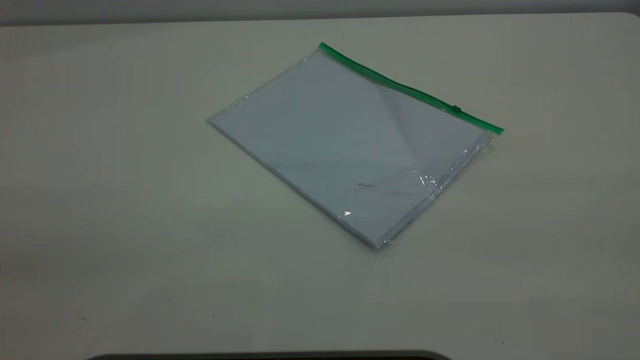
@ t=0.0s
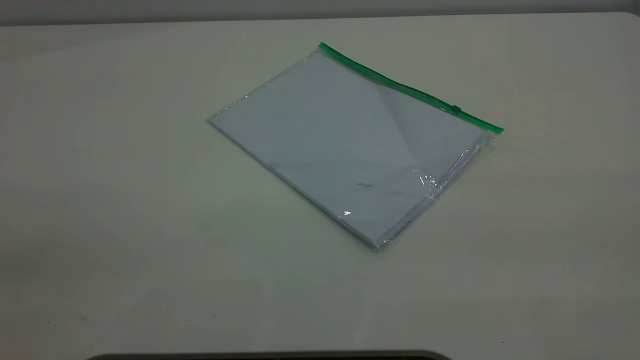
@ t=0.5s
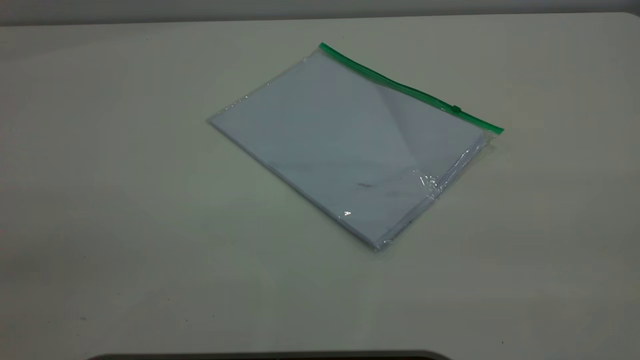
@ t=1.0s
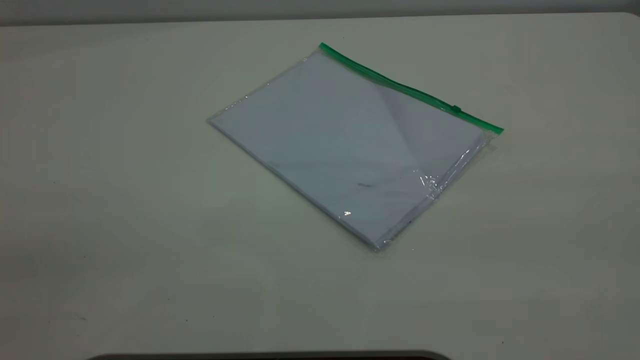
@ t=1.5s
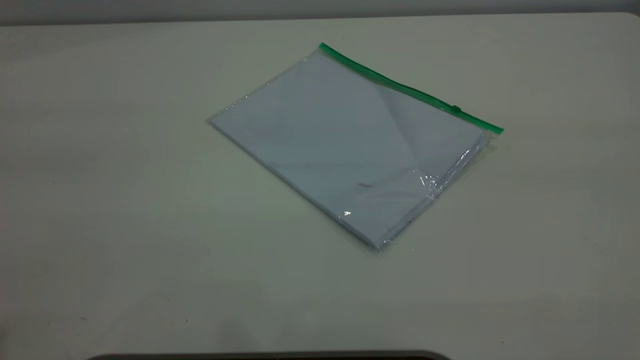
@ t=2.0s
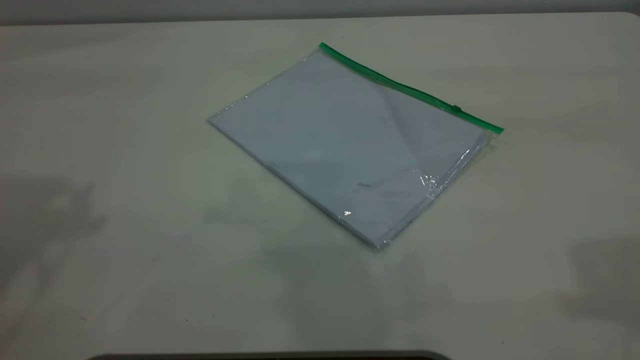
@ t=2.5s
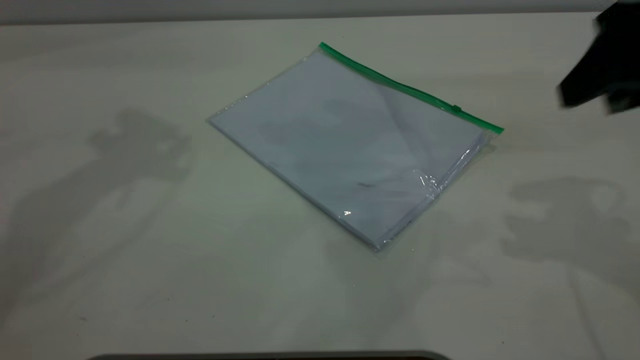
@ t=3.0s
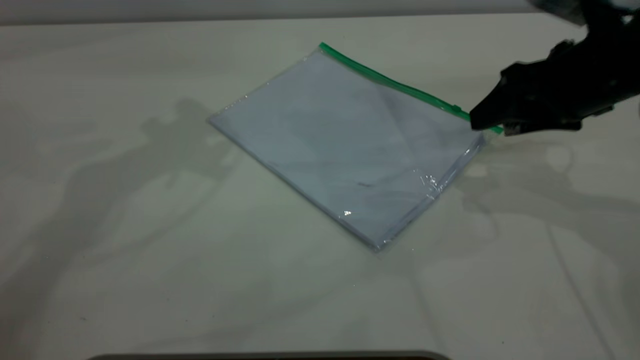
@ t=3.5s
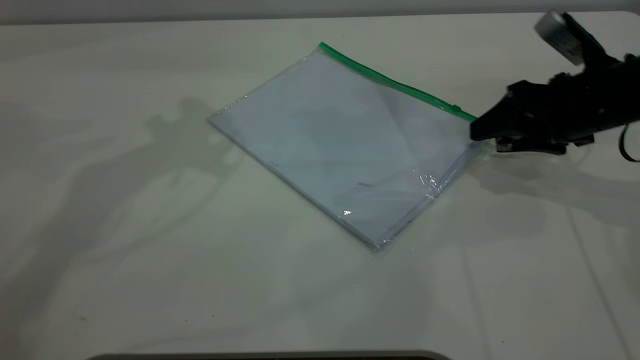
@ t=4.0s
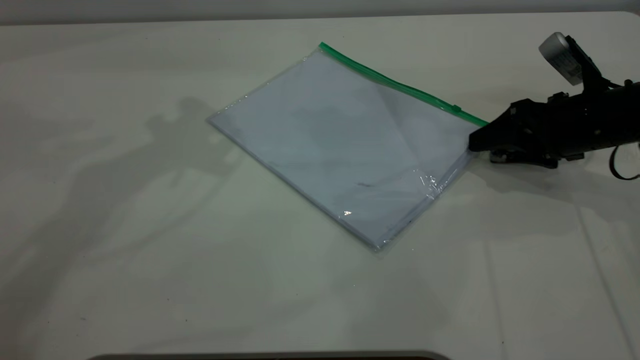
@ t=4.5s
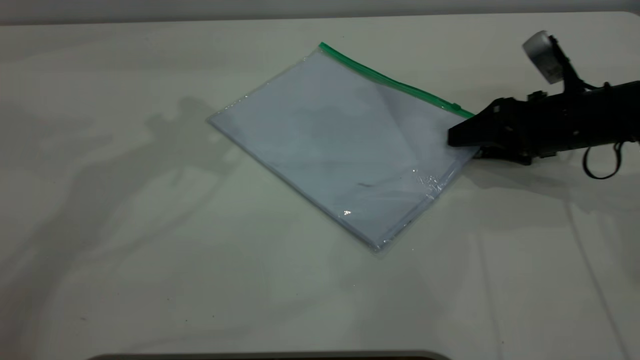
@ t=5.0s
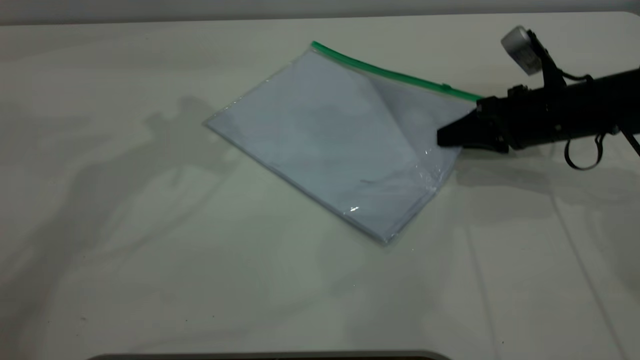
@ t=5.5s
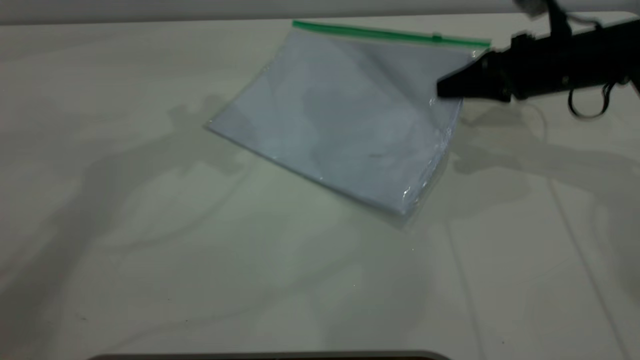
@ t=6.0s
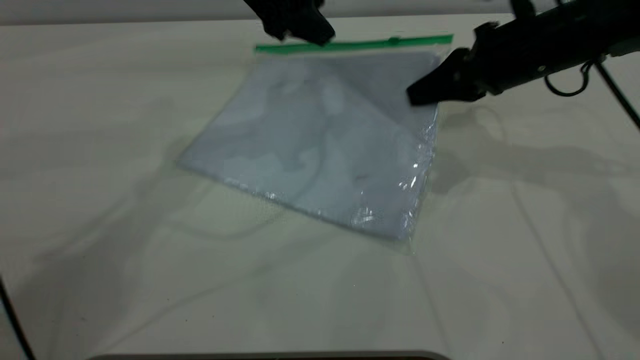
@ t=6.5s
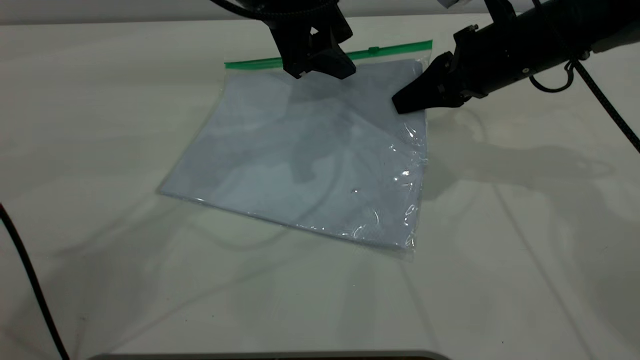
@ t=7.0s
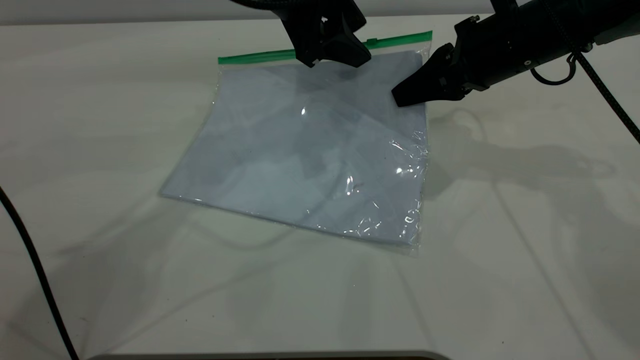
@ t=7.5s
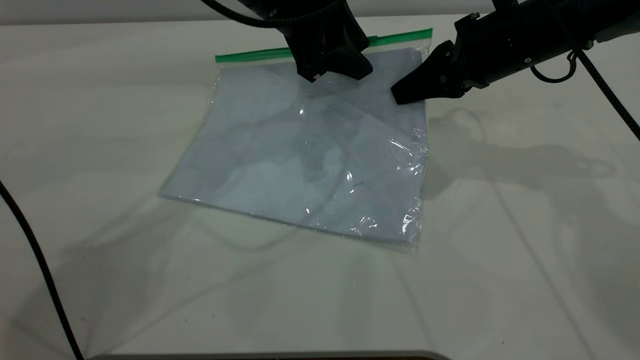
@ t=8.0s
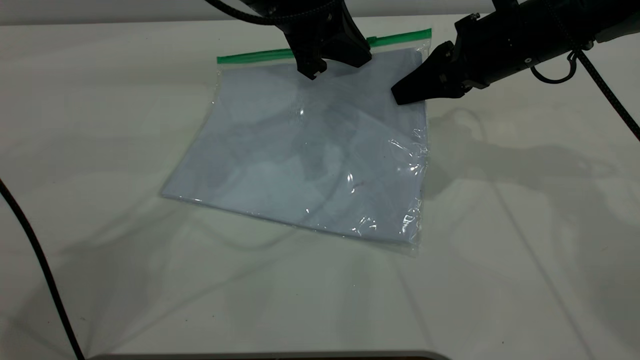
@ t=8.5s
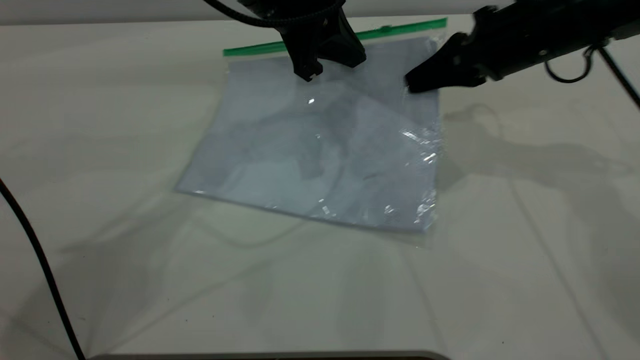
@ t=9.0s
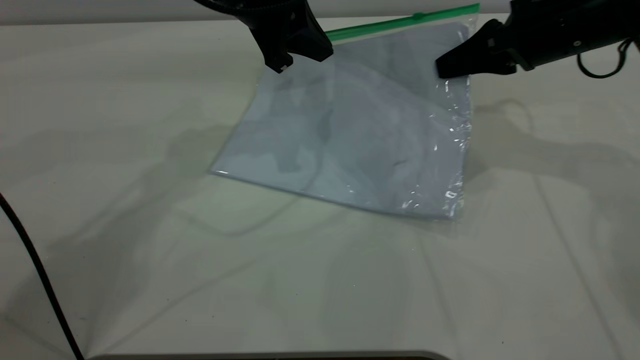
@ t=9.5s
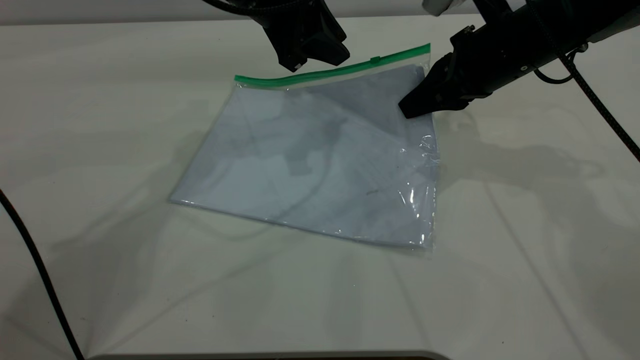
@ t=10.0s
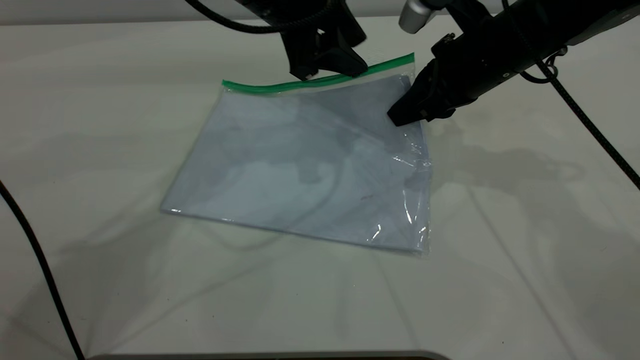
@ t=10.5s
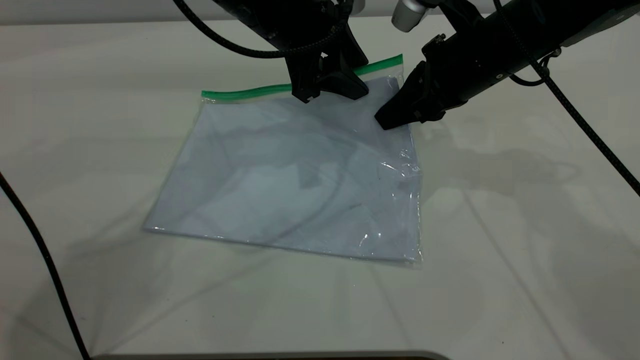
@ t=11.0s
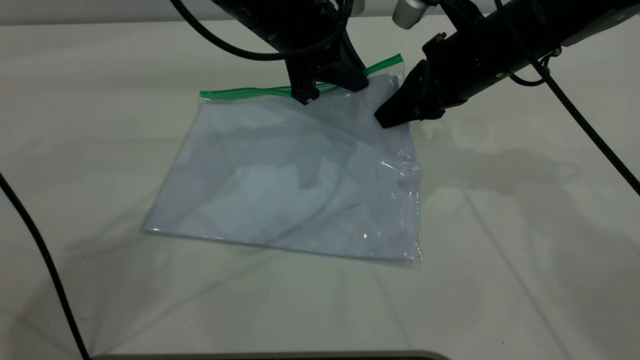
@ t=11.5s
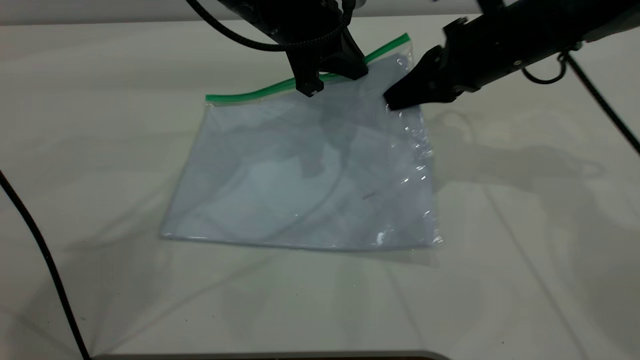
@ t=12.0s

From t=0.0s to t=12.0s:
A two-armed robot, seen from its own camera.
Step, from t=0.0s to t=5.5s: Pick up the transparent plastic bag with the right gripper.
From t=2.0s to t=4.0s: The right gripper goes about 50 cm downward and forward.
From t=4.0s to t=6.0s: The right gripper goes roughly 5 cm forward, and closes up.
From t=6.0s to t=8.0s: The left gripper travels to the right and downward by about 15 cm. The right gripper moves to the left, some 5 cm.
From t=8.0s to t=10.0s: The left gripper closes and opens again.
From t=10.0s to t=12.0s: The left gripper closes its fingers.

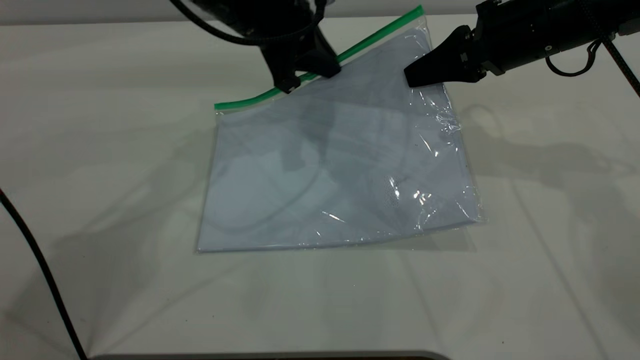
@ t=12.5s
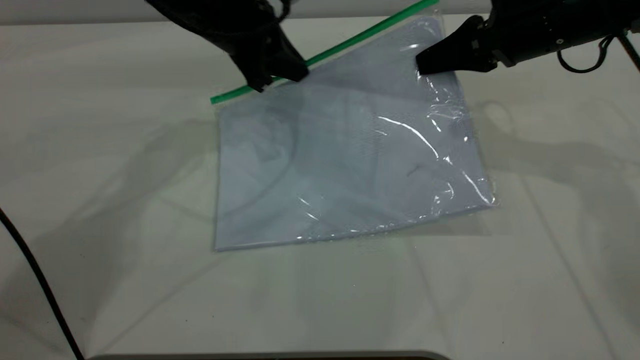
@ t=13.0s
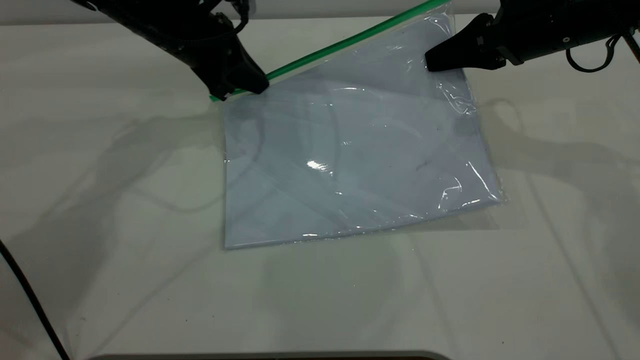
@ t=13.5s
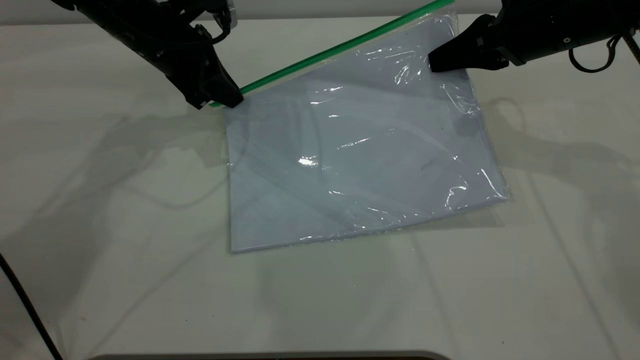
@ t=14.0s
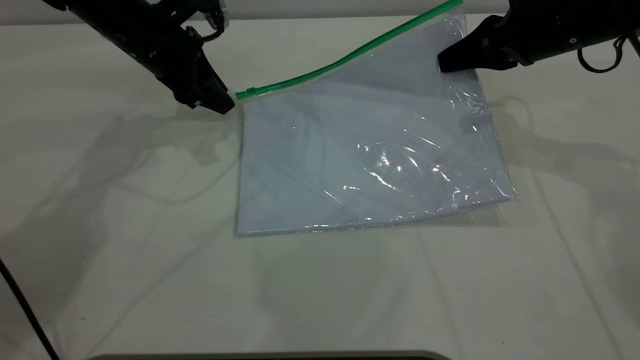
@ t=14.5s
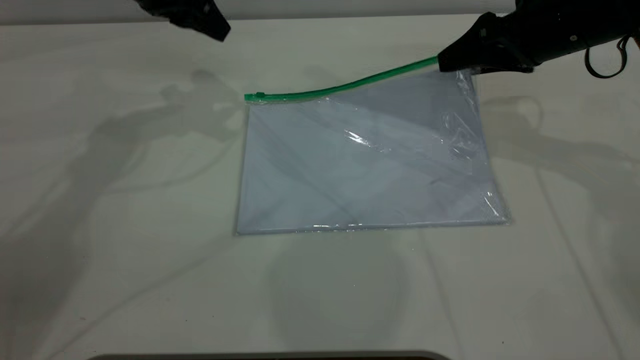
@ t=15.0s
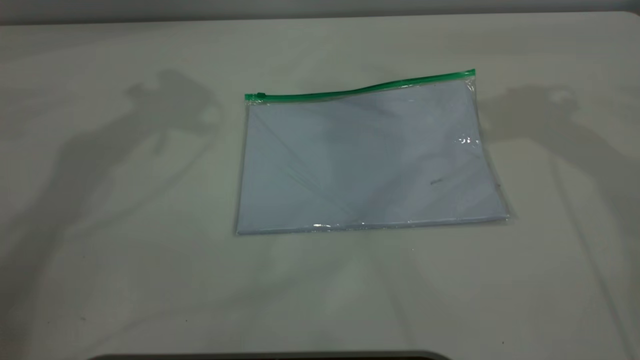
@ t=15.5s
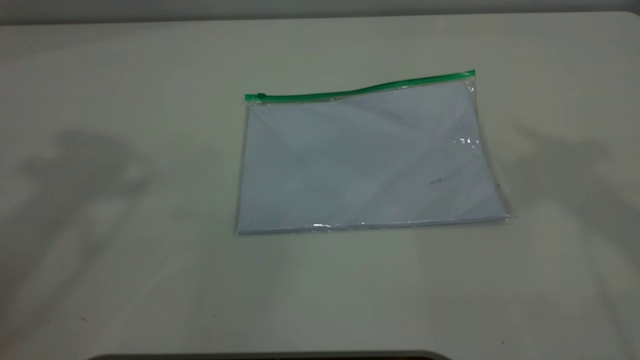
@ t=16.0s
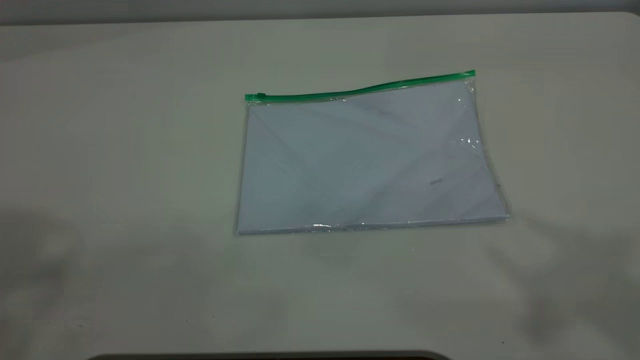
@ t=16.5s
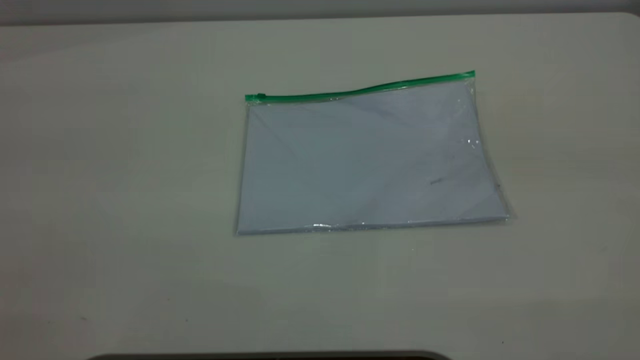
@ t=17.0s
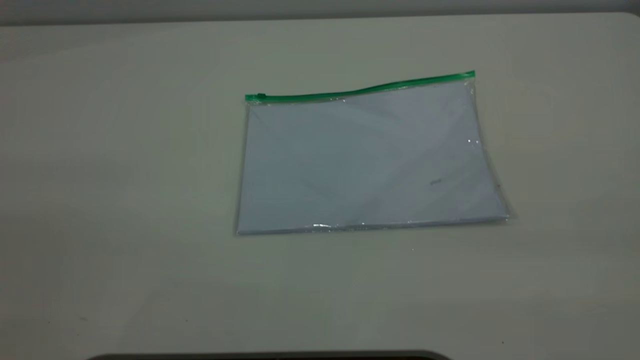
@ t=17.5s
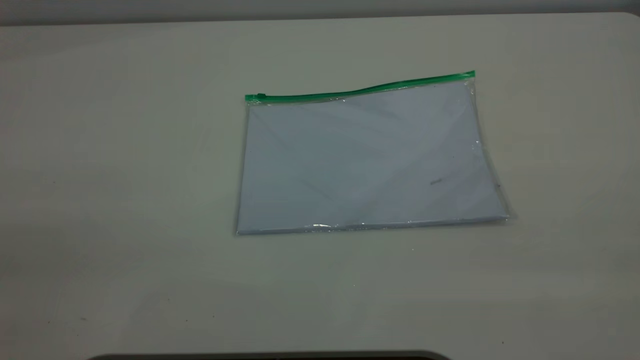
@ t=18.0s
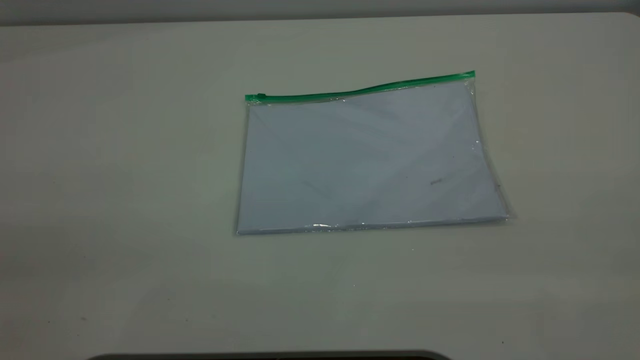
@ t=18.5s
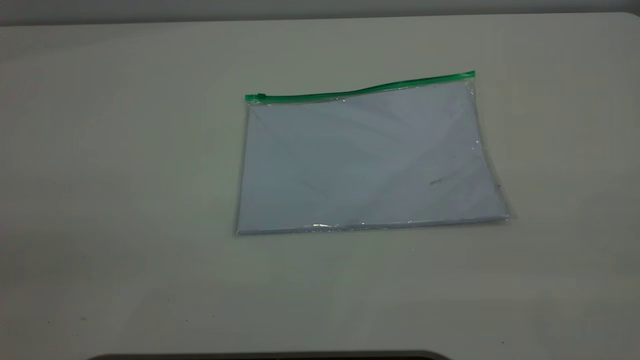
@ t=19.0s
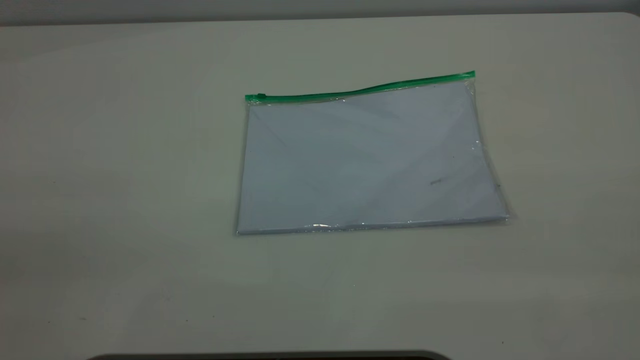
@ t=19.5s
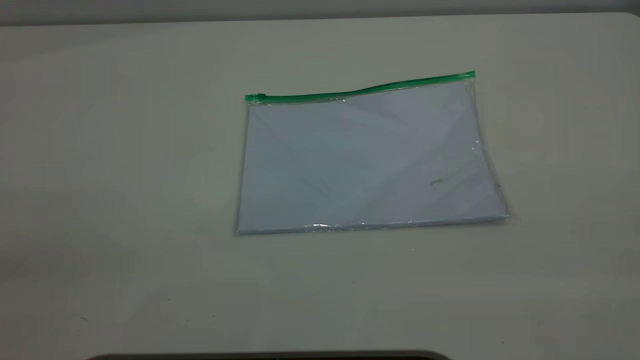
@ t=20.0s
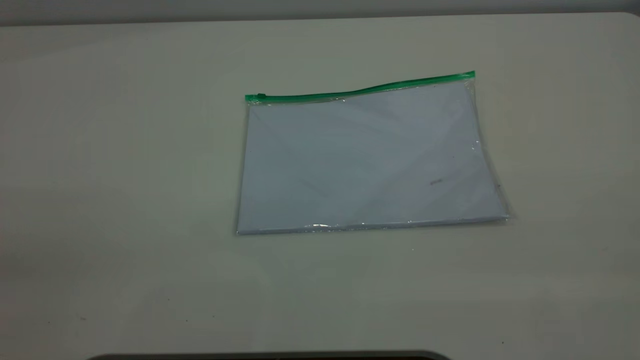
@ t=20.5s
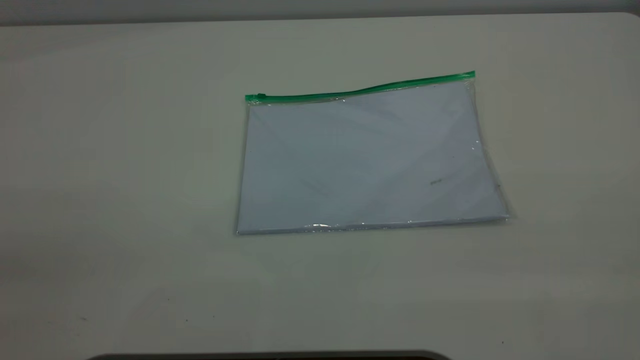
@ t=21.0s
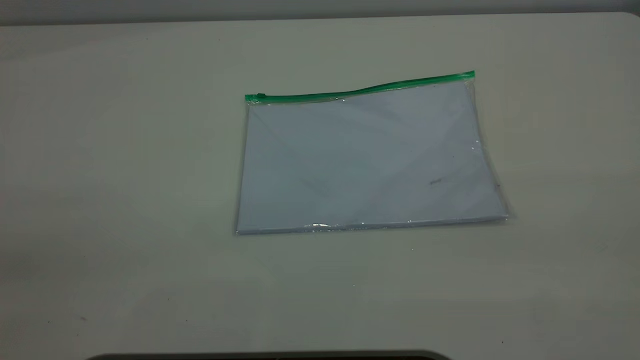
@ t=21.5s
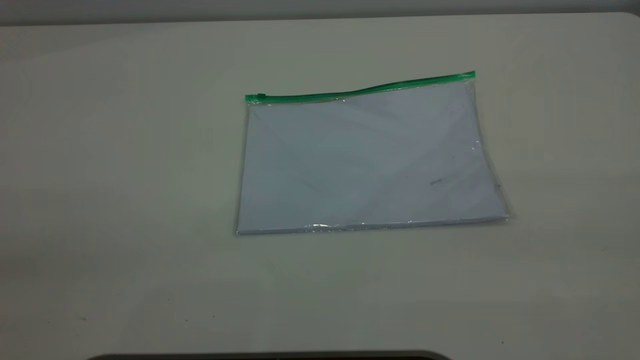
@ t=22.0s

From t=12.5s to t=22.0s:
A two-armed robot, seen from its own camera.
Step, from t=14.5s to t=15.0s: Place the transparent plastic bag.
From t=12.5s to t=14.5s: The left gripper moves to the left, roughly 10 cm, and opens.
From t=14.5s to t=16.5s: Both grippers move upward and backward, about 50 cm. The right gripper opens its fingers.
